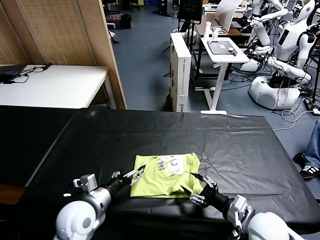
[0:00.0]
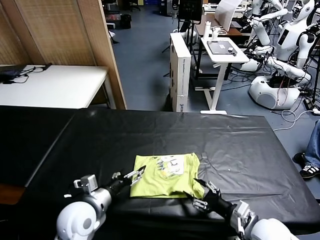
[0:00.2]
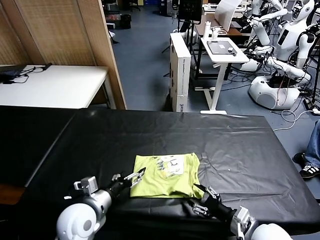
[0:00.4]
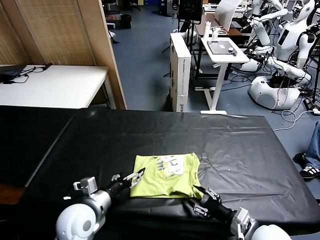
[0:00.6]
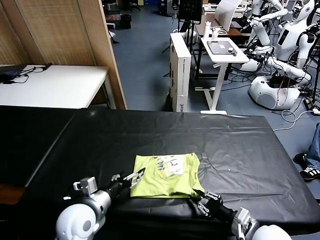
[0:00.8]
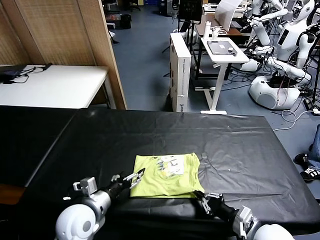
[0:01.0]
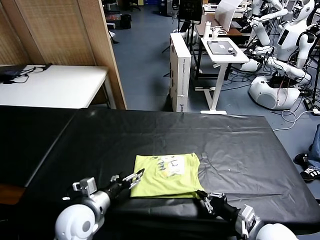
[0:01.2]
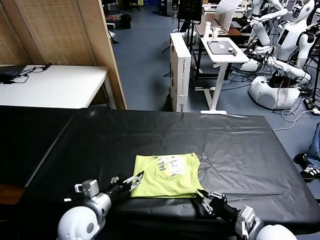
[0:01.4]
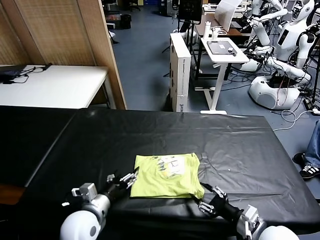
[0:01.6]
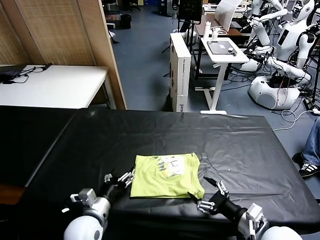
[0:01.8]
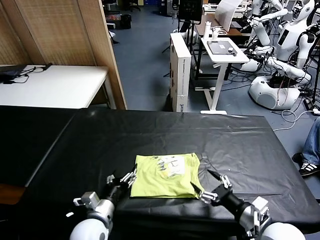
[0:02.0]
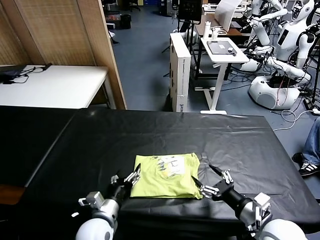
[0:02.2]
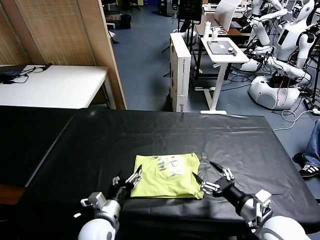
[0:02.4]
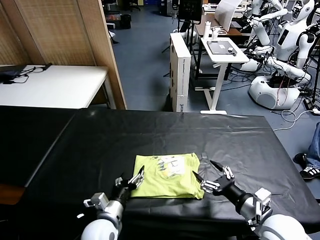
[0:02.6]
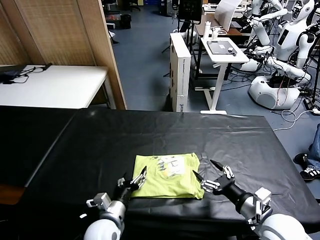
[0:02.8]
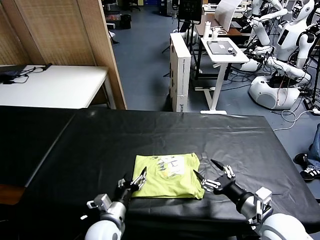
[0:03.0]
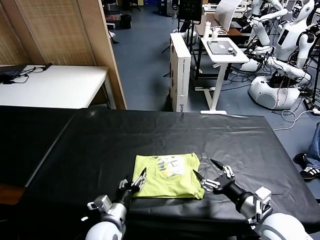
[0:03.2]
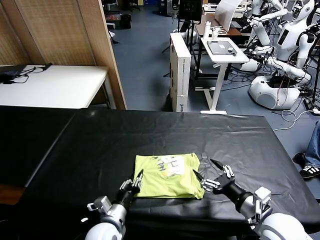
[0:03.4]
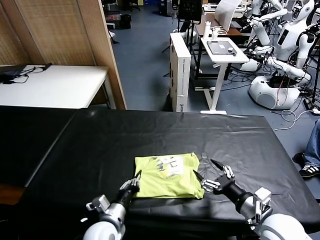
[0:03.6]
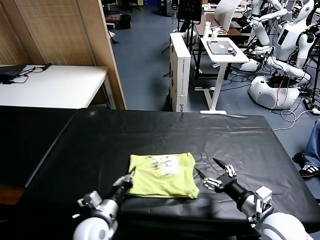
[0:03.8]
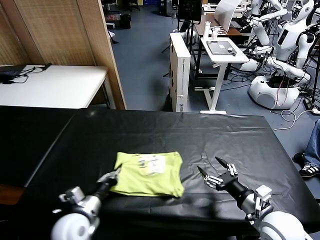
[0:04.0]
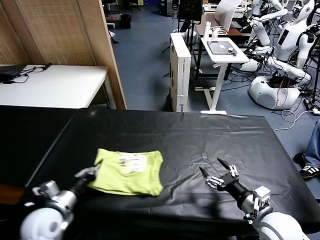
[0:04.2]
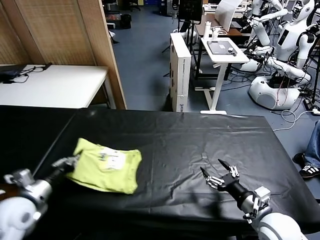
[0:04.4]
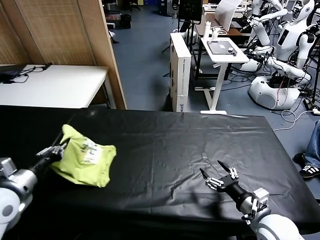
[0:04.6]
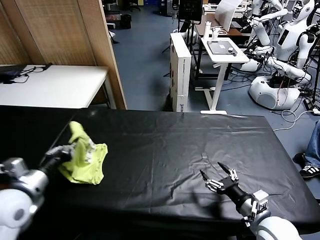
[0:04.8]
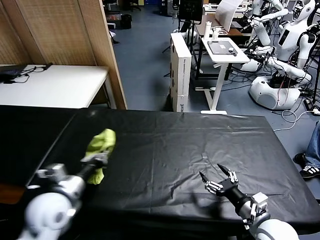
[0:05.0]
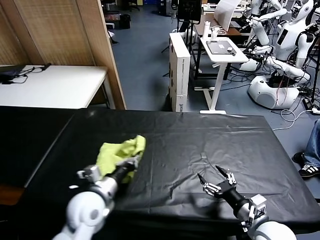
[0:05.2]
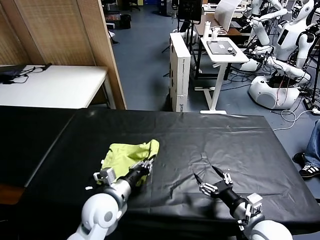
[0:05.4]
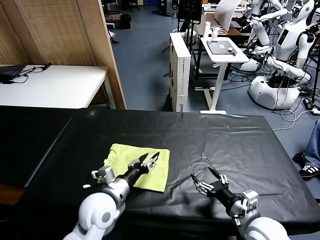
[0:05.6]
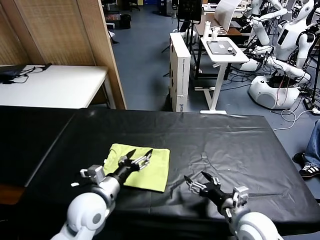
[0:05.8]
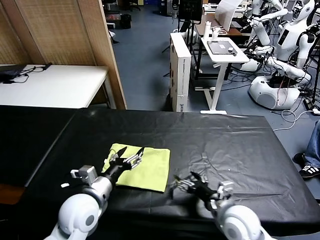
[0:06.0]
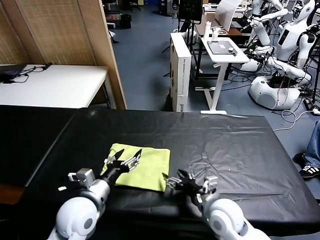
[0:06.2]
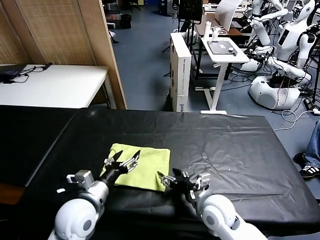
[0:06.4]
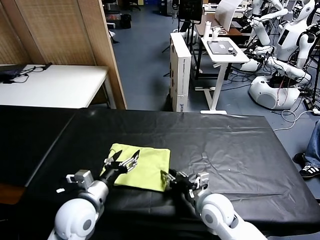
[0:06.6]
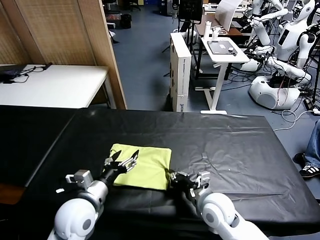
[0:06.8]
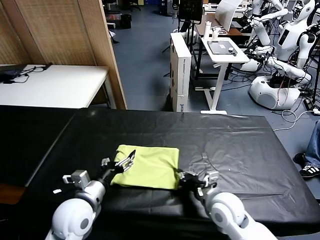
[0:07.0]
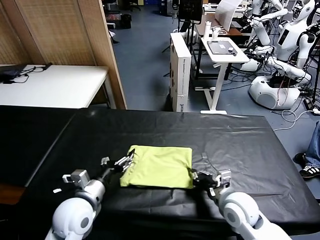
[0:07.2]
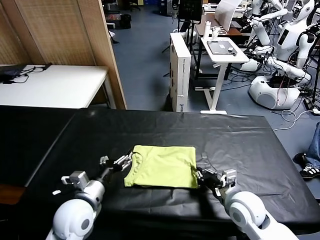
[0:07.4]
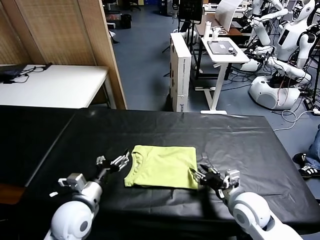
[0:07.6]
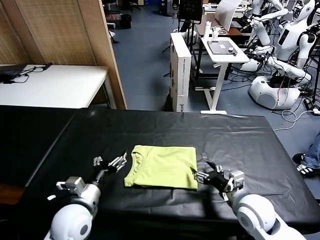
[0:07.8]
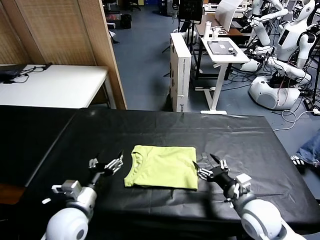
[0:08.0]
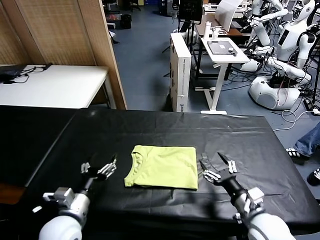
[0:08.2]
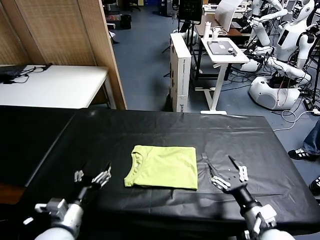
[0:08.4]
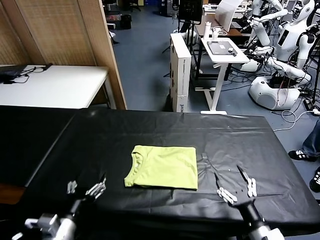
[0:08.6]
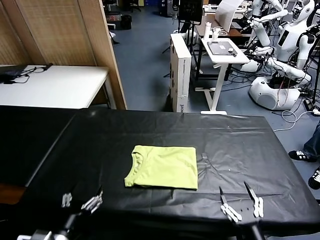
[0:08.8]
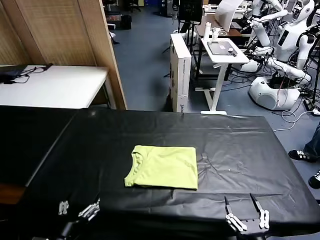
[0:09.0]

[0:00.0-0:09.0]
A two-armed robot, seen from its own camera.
Task of the whole recording: fold and organize the clothes.
Step, 0:00.0 to 0:05.8: Flip the folded clothes over with left gripper.
Step, 0:06.0 to 0:07.6: Drag the clothes to the center of the table.
0:00.0 to 0:01.6: The right gripper closes, then opens again.
0:01.6 to 0:03.0: The left gripper is displaced to the right and downward by roughly 5 cm.
0:03.0 to 0:04.4: The left gripper goes some 25 cm to the left and upward, and closes up.
0:04.4 to 0:06.0: The left gripper heads to the right, covering about 15 cm, and opens, while the right gripper travels to the left by some 10 cm.
0:06.0 to 0:07.6: The right gripper shifts by approximately 5 cm, and closes.
0:07.6 to 0:09.0: The grippers both shift backward by some 20 cm. The right gripper opens its fingers.
